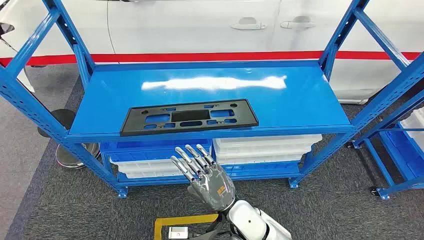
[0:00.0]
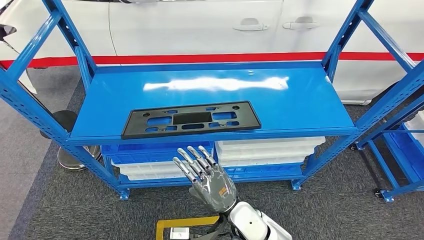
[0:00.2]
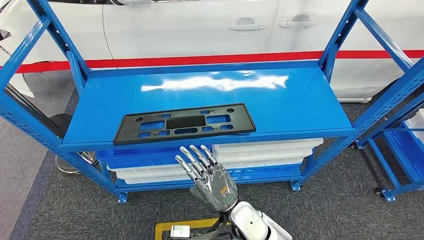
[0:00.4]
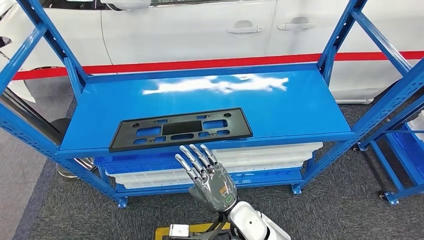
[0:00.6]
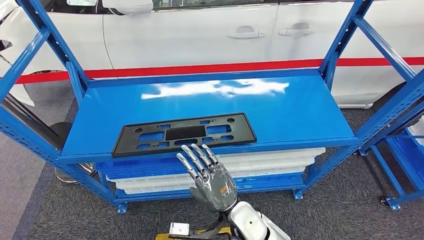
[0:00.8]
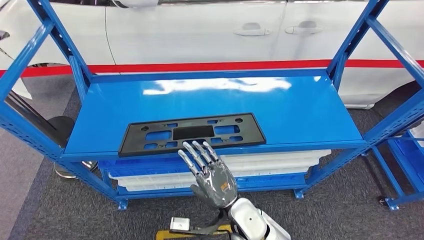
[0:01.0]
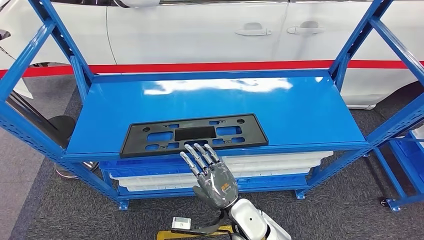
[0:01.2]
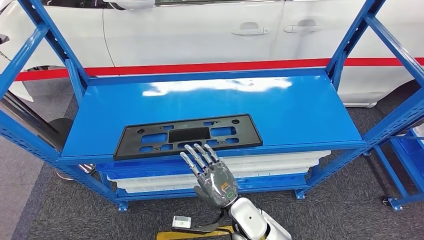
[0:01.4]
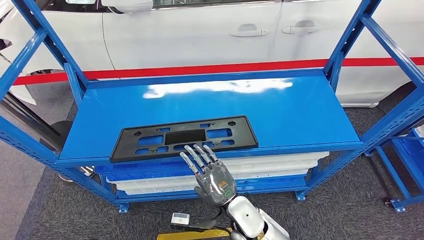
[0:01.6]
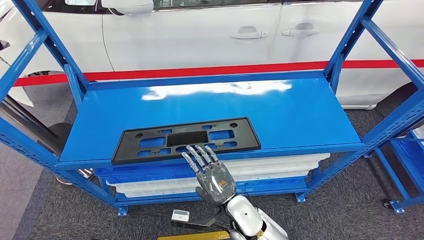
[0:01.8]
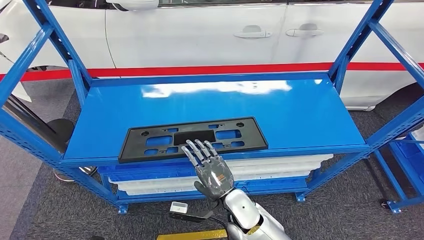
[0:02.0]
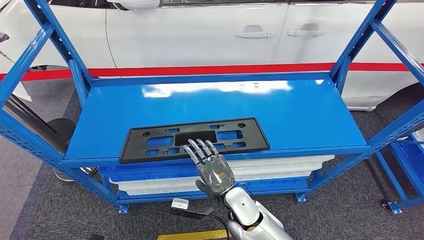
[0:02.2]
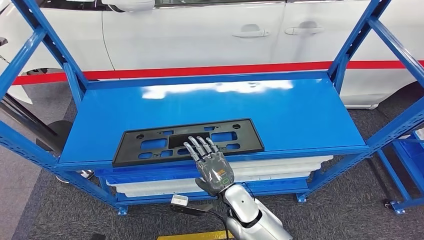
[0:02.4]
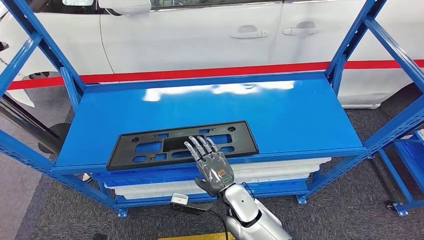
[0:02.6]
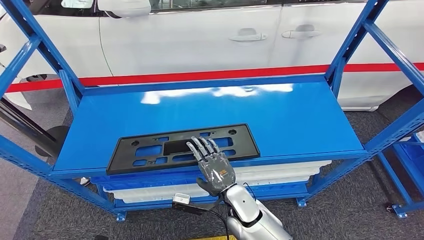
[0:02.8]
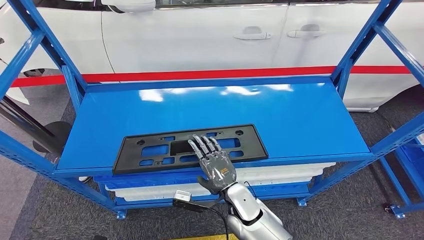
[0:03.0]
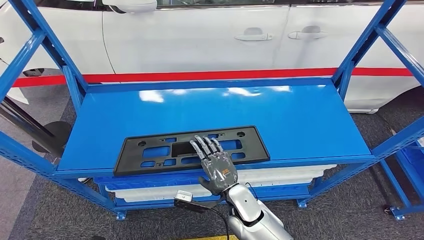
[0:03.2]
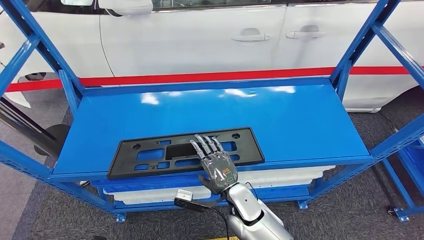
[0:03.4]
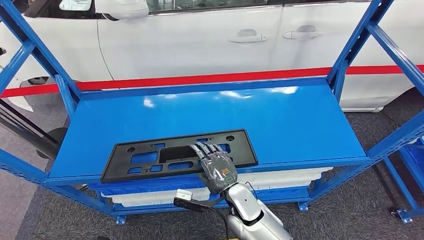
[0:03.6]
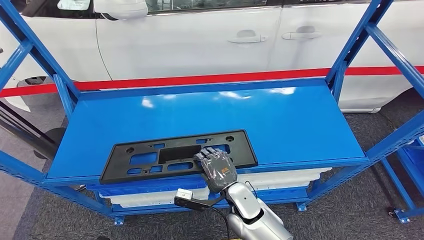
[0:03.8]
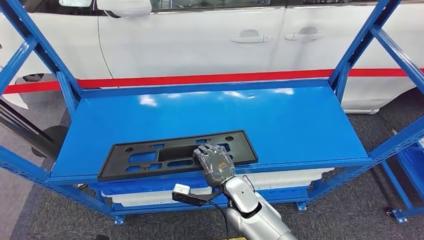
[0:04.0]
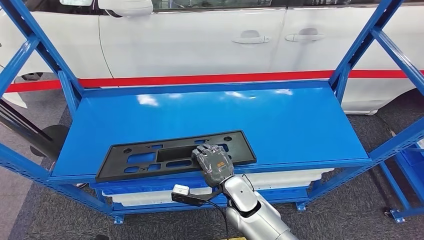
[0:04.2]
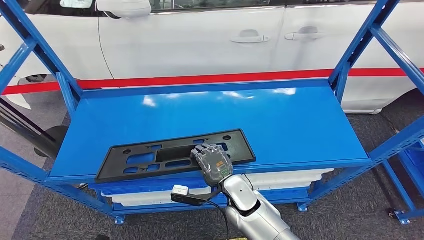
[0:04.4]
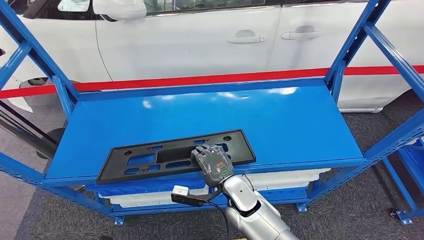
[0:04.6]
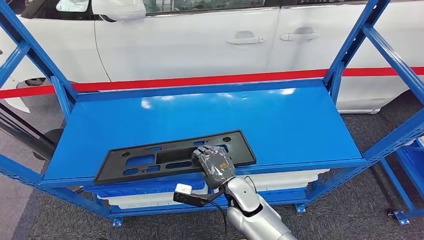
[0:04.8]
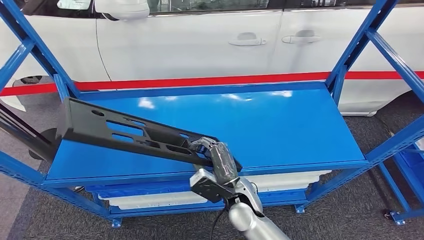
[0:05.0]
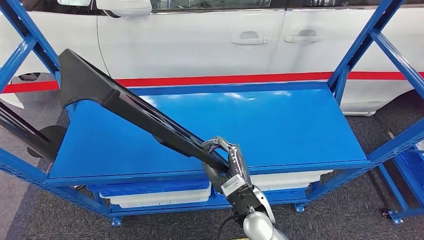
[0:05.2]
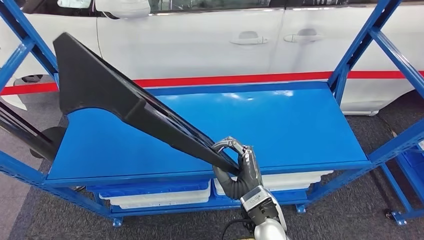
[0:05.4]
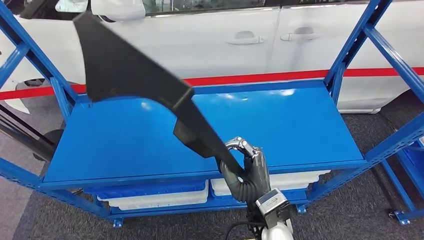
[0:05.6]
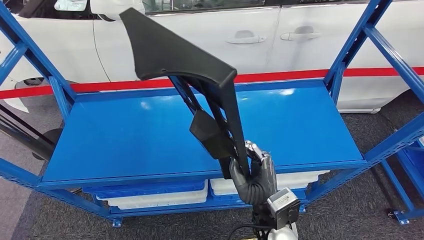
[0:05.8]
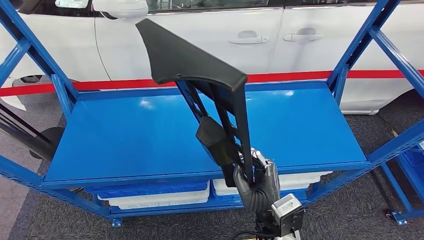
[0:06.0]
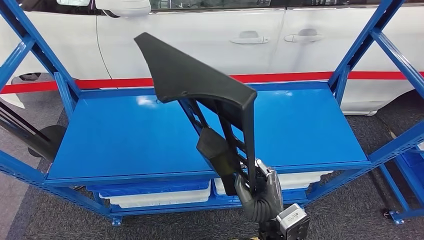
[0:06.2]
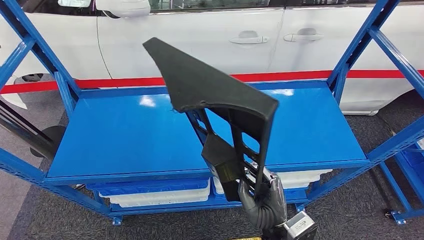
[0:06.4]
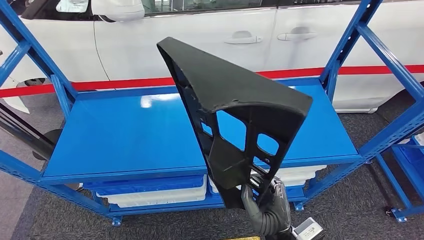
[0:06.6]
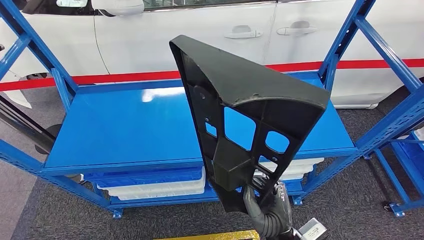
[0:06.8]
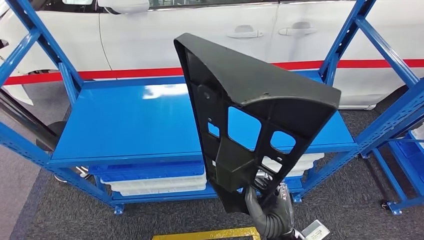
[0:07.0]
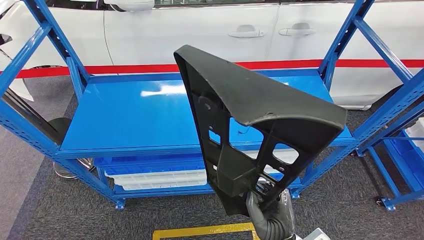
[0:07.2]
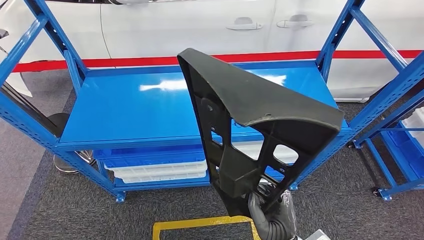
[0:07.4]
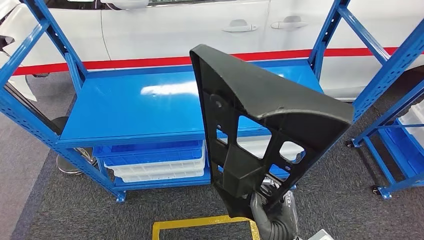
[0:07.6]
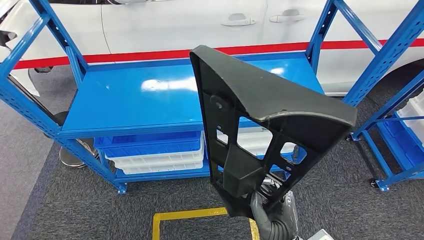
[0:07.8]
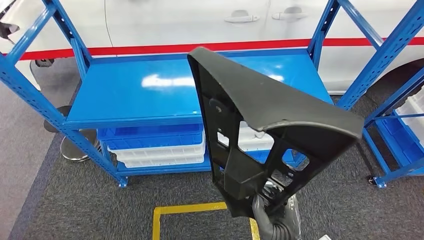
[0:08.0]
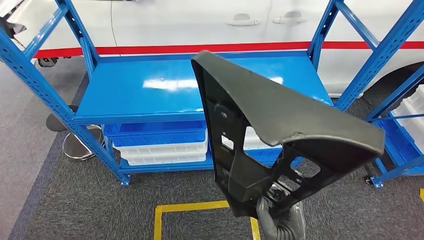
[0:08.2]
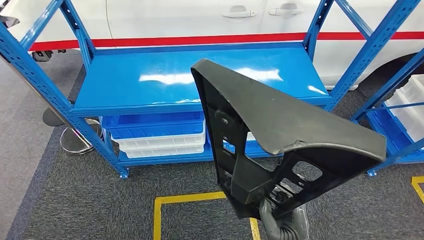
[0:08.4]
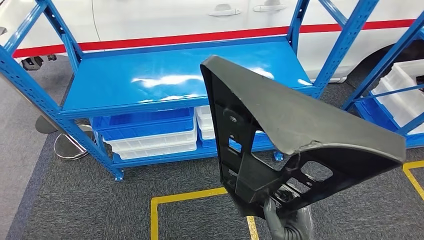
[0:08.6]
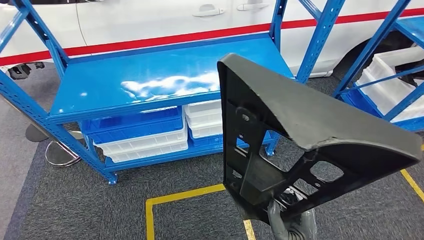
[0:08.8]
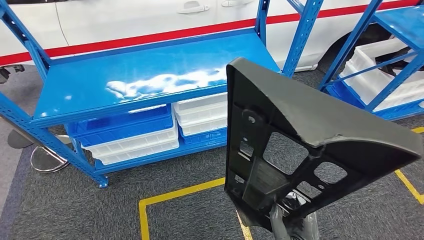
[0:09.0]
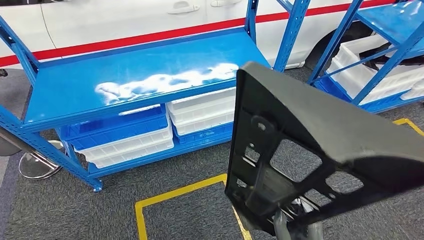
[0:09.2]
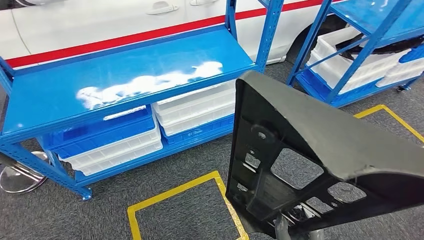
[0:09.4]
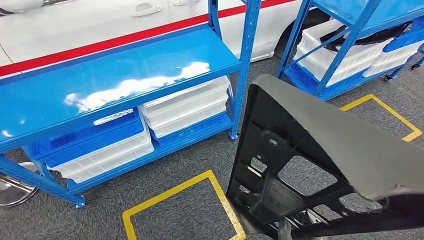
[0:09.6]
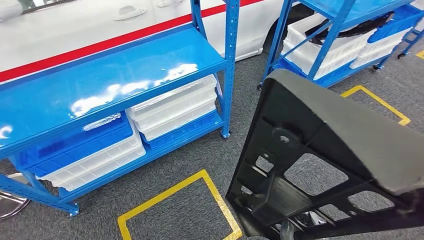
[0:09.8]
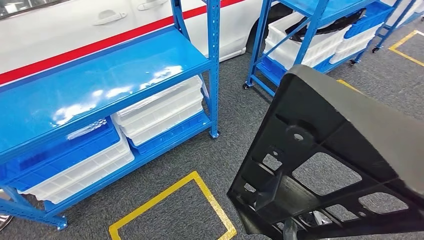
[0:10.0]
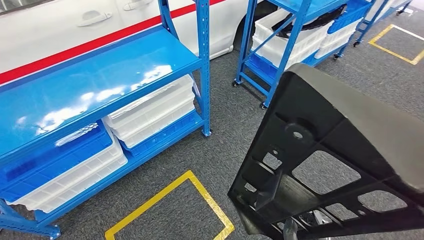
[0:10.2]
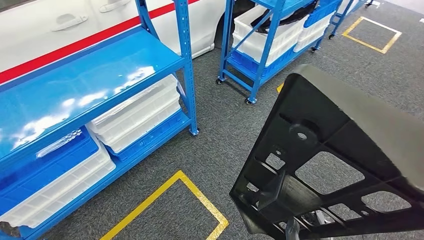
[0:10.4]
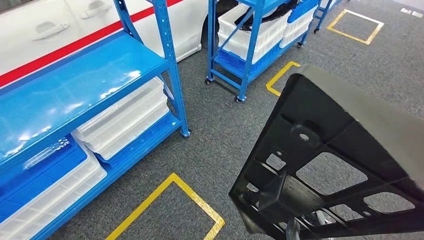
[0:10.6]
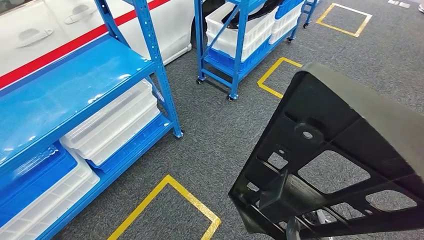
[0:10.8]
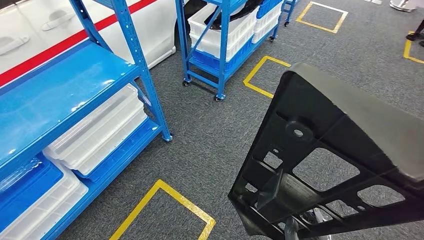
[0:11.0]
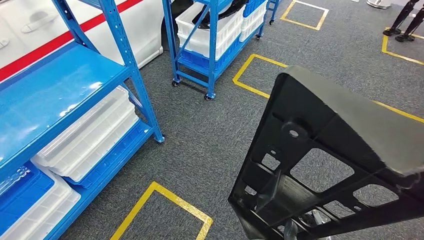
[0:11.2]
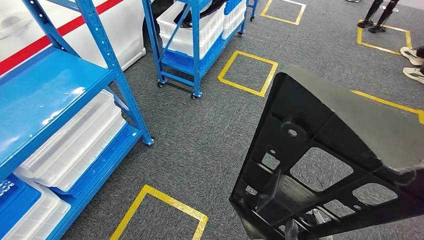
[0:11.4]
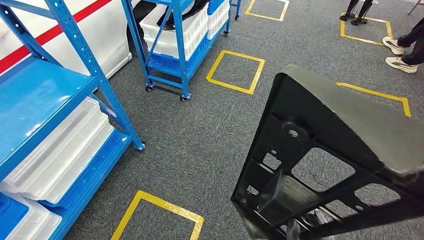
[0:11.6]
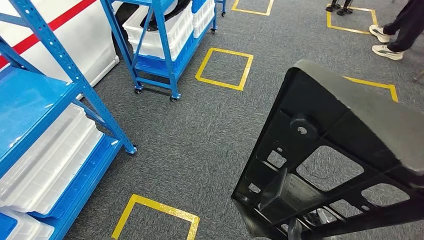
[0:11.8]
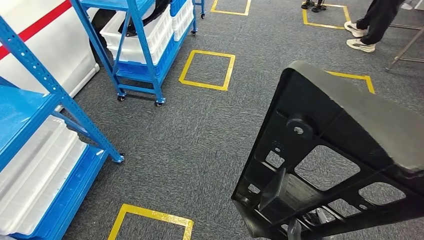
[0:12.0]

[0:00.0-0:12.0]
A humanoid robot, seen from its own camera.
Step, 0:00.0 to 0:09.6: Pick up the large material from the shelf.

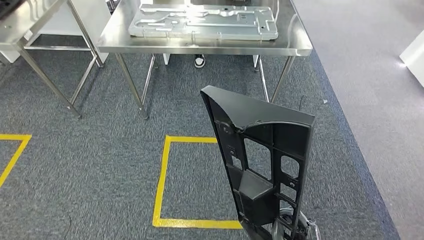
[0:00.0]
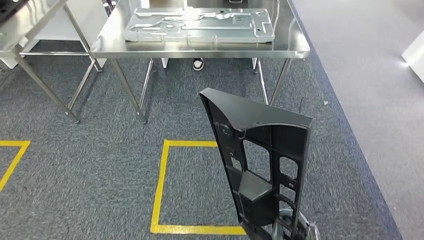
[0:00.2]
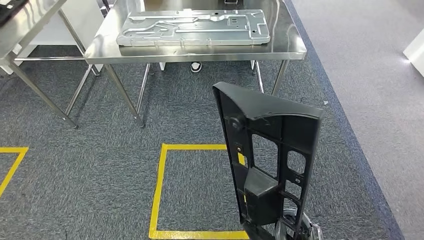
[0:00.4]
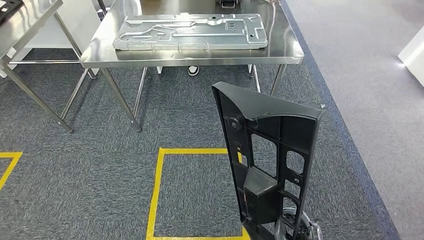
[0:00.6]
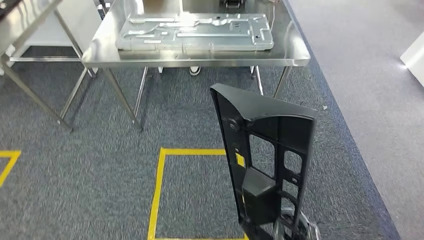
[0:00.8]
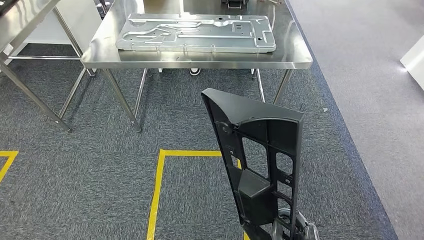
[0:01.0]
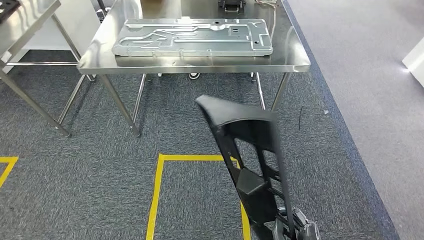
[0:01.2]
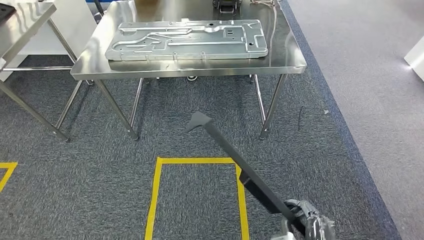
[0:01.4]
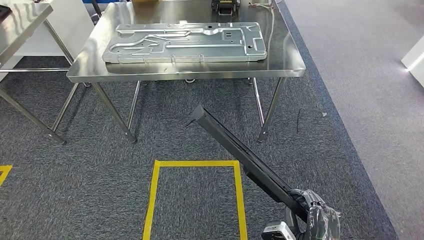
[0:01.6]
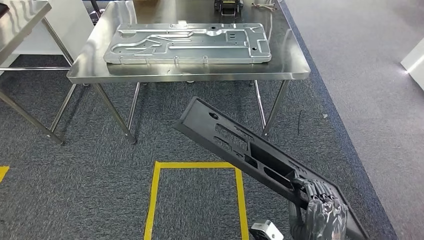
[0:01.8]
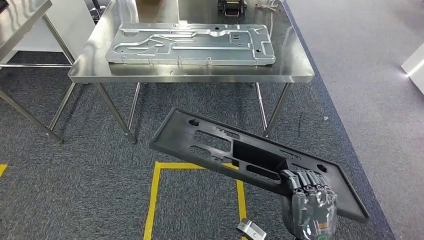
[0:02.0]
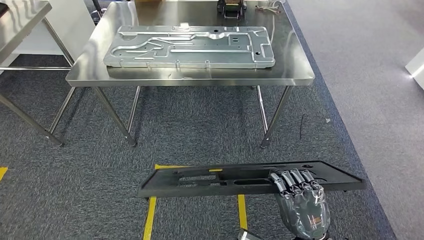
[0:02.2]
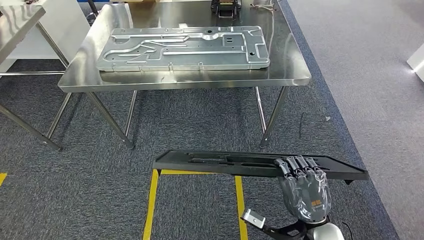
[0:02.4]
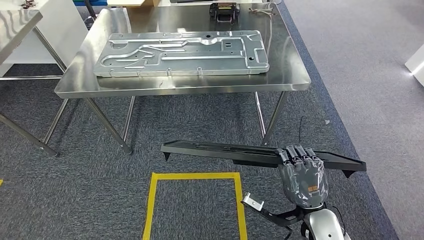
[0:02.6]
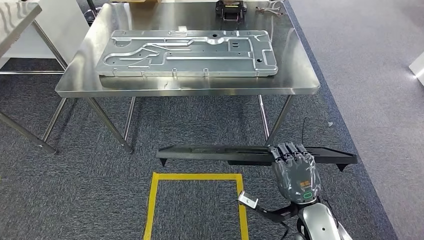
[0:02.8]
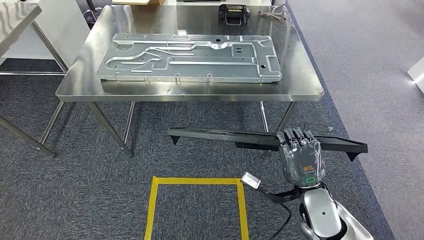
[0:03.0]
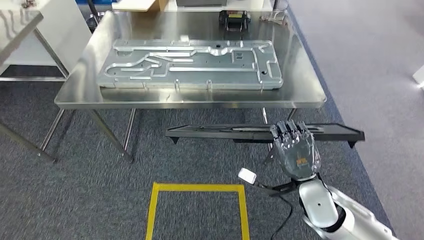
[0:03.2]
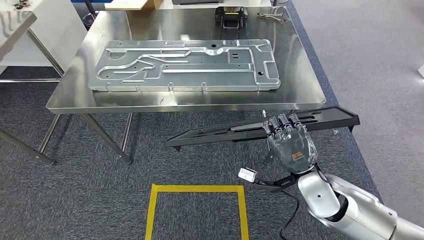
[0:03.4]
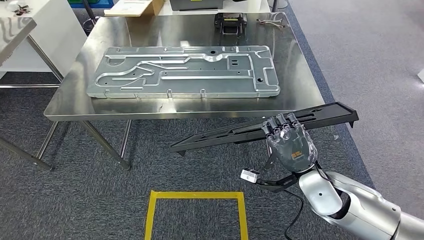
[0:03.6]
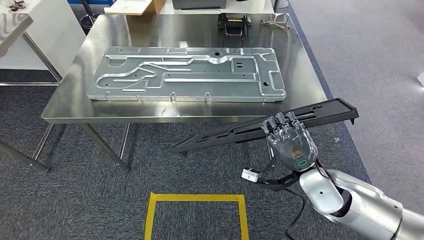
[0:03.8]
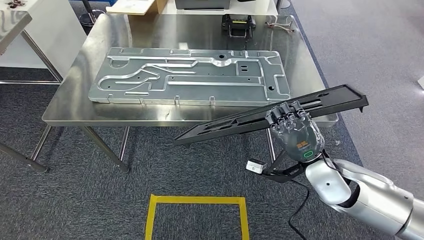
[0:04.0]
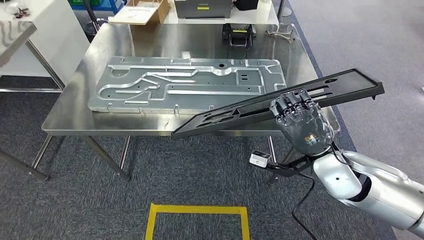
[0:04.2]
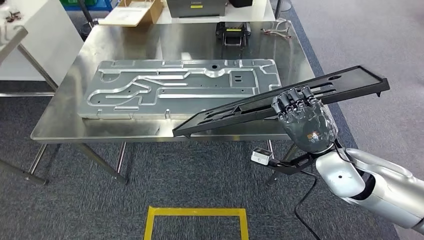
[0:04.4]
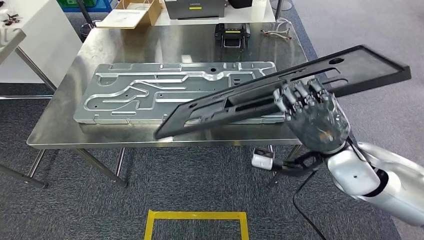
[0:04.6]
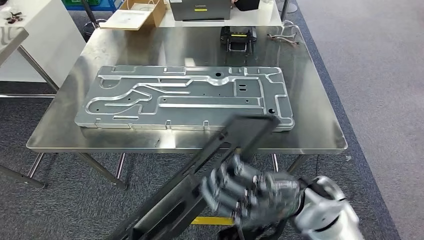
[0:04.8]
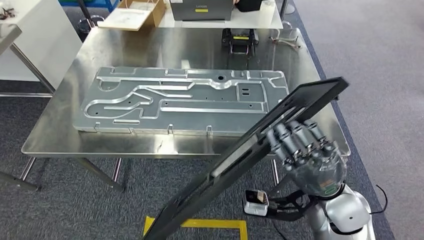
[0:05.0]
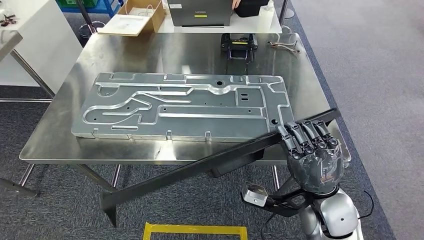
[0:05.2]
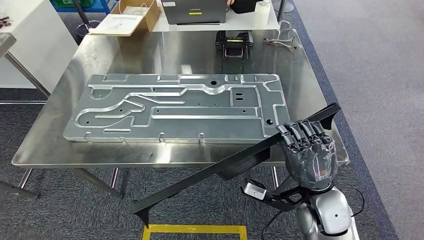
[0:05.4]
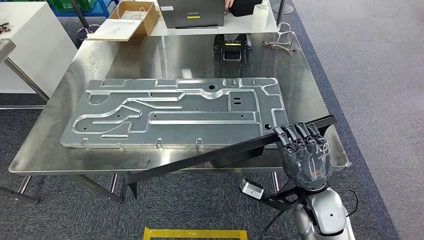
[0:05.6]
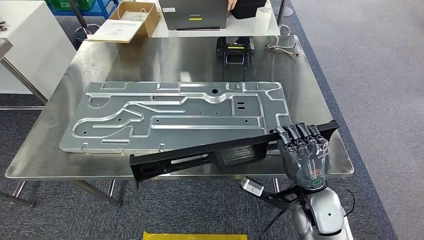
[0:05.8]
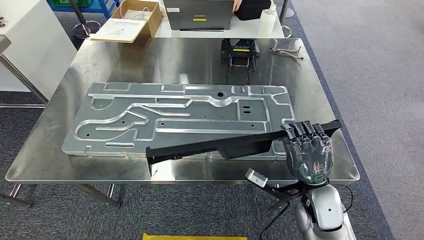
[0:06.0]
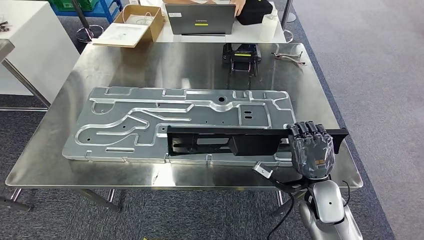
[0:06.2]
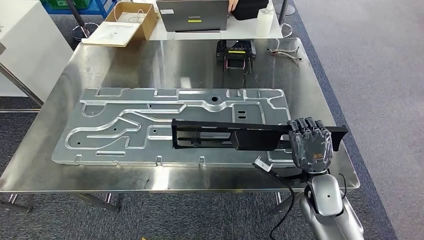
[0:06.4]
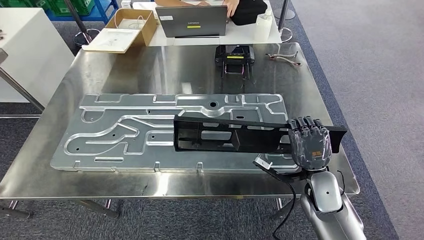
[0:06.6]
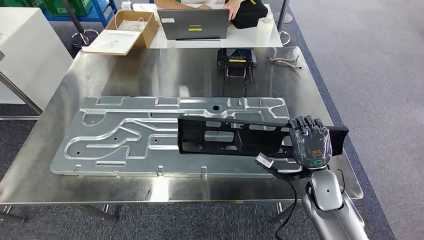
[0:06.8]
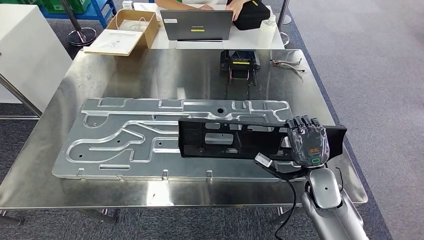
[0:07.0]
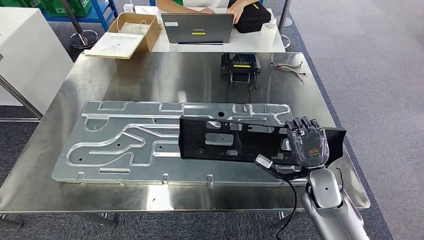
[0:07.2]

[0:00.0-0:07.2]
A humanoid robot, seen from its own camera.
Step, 0:00.0 to 0:03.2: Move the large material to the workbench.
